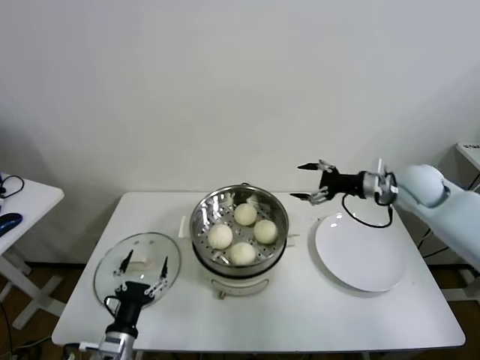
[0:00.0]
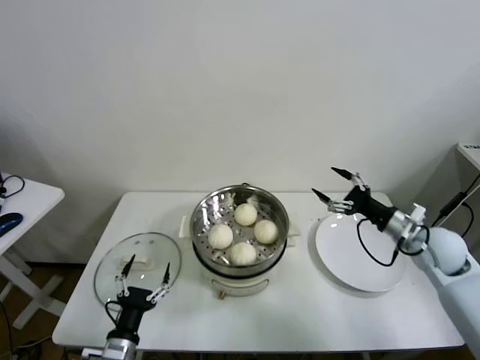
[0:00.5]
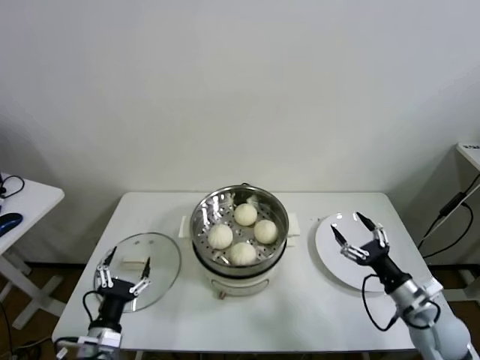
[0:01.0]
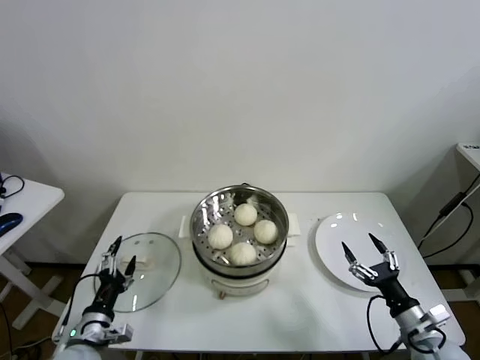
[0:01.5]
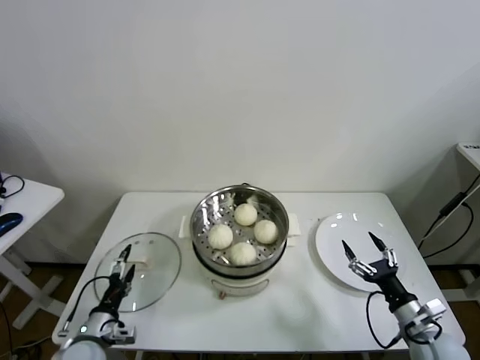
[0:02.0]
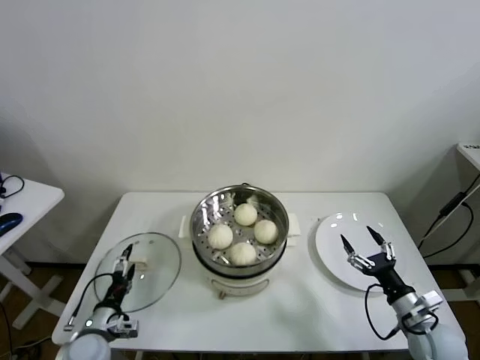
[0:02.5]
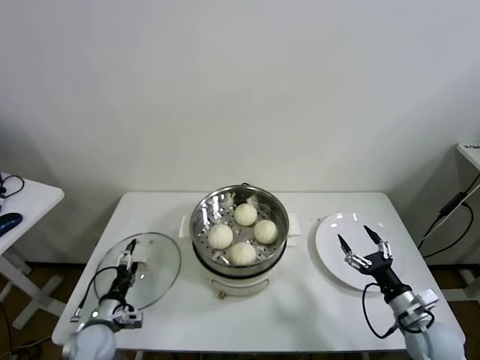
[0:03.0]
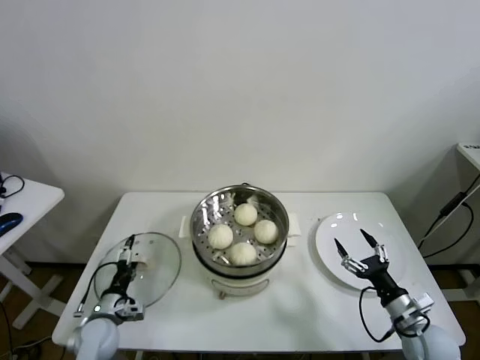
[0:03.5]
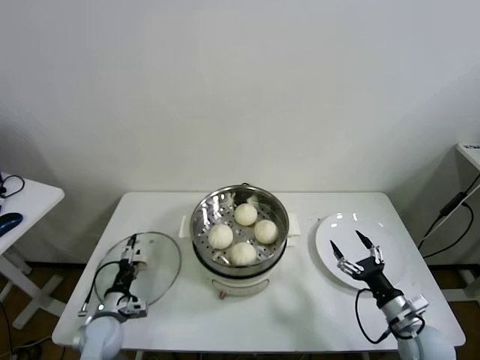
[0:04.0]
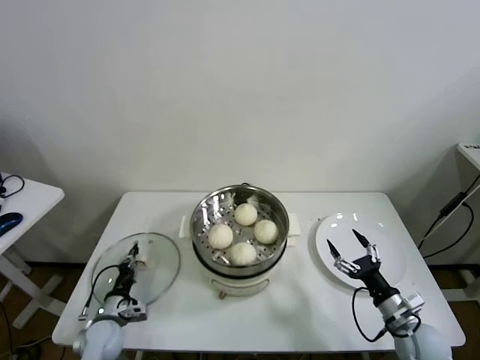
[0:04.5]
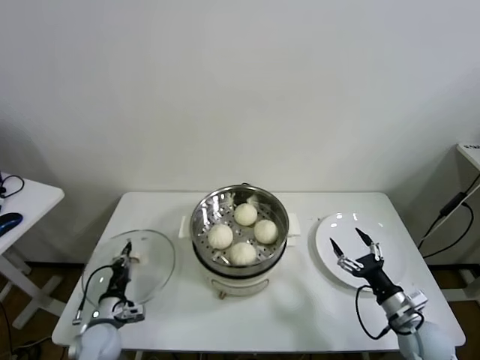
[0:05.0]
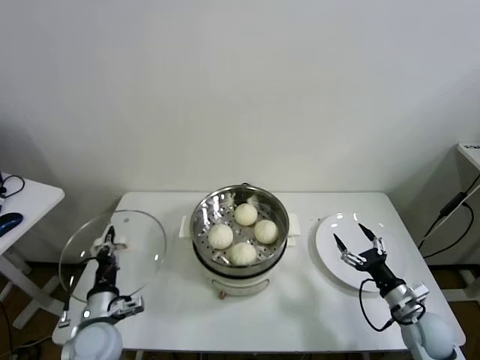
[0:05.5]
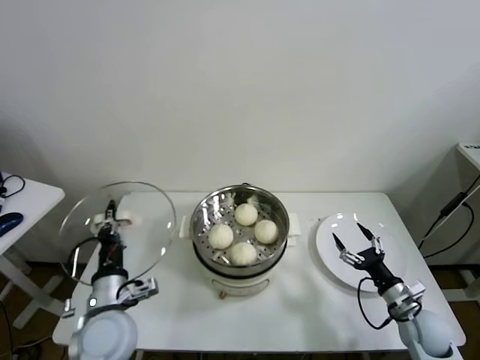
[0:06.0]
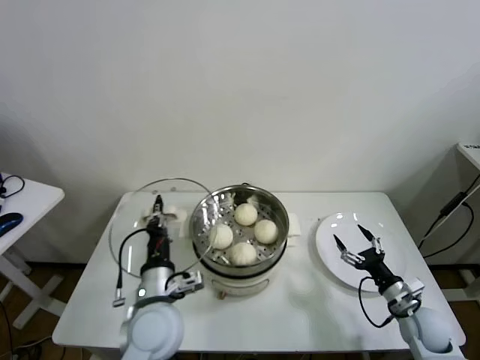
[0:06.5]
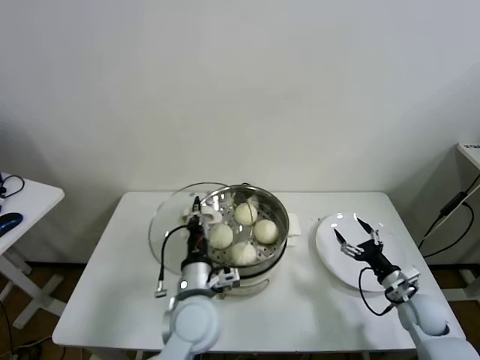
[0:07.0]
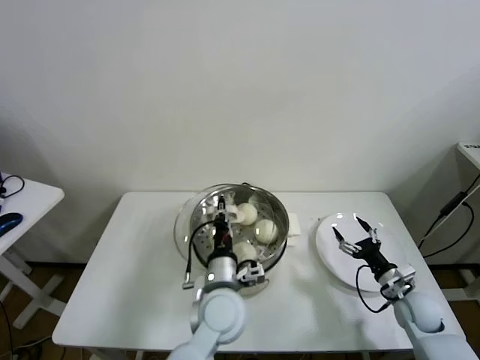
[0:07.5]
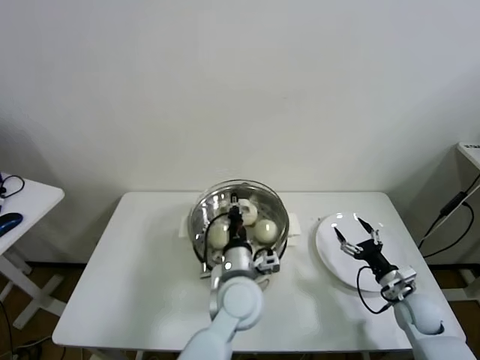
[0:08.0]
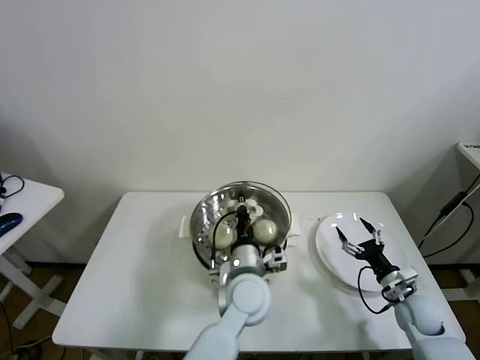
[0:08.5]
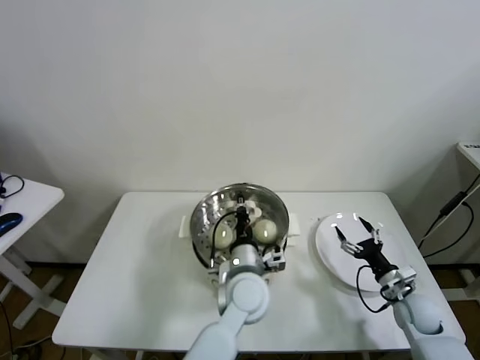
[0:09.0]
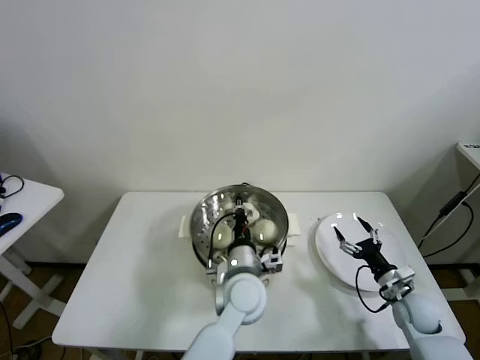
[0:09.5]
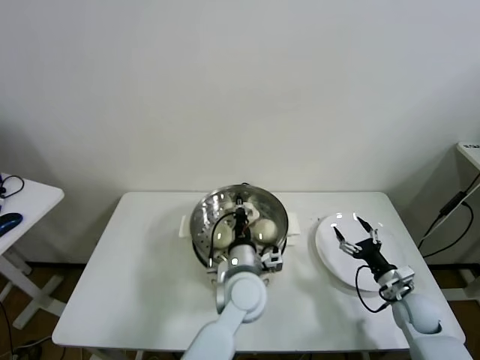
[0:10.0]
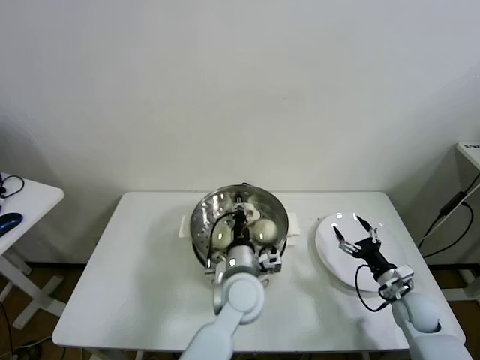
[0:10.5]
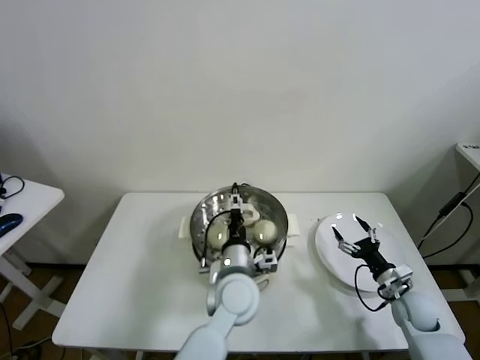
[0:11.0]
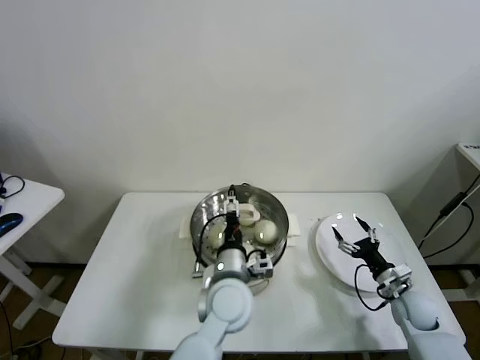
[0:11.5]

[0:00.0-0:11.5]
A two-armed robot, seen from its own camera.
Task of the whole recording: take steamed baozi put them in steamer.
Step, 0:00.0 to 0:04.5: Grasp the pot lid with left gripper.
Step, 0:05.0 to 0:11.0: Place the pot lid on the steamer with left gripper.
0:00.0 to 0:02.0: The left gripper is displaced to the left by about 5 cm. Meanwhile the right gripper is displaced backward and downward by approximately 35 cm.
0:02.0 to 0:04.0: The left gripper is displaced forward by approximately 5 cm.
0:04.0 to 0:06.0: The left gripper moves upward and to the right, roughly 20 cm, and closes its fingers.
0:06.0 to 0:07.5: The right gripper ends up some 5 cm from where it was. The left gripper heads to the right, covering some 20 cm.
0:07.5 to 0:09.5: The left gripper shifts by some 5 cm.
0:09.5 to 0:11.5: The left gripper opens its fingers.

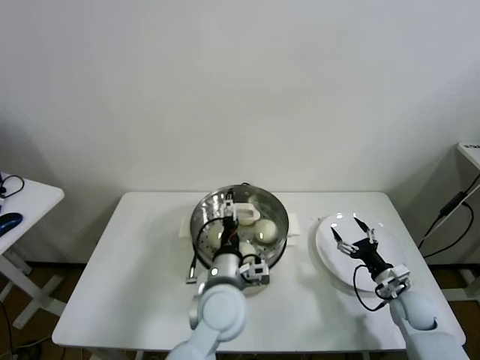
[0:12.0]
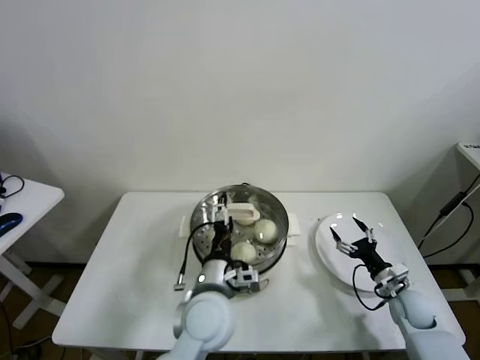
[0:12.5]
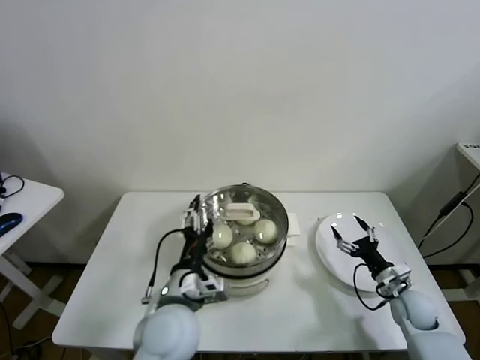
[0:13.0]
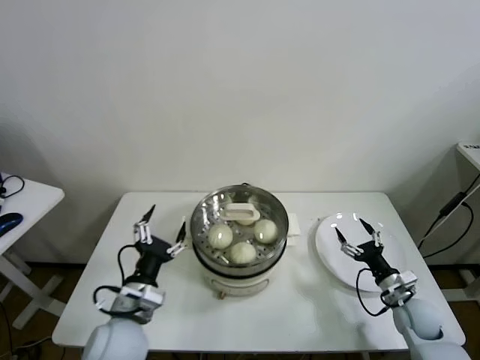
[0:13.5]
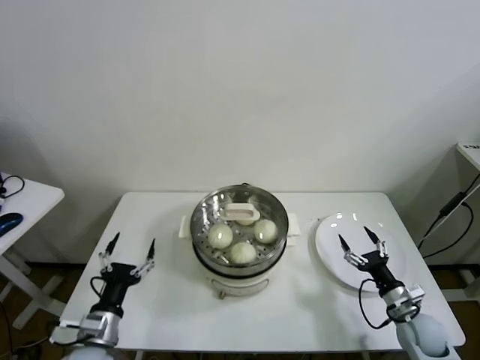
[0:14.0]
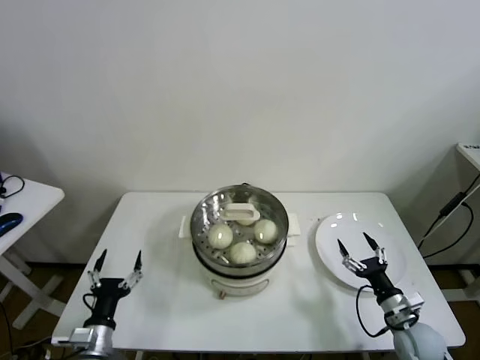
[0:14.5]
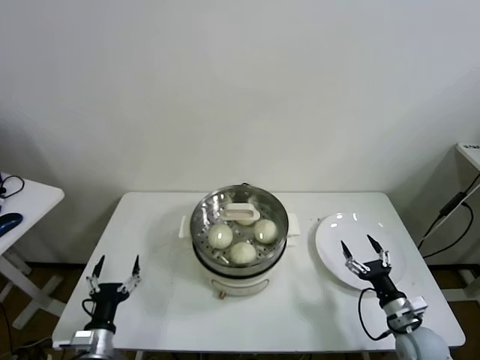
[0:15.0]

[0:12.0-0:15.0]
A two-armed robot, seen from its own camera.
Task of the whole recording: take steamed baozi put them in steamer.
0:12.0 to 0:13.5: The left gripper travels to the left by roughly 15 cm.
0:13.5 to 0:15.0: The left gripper travels downward and to the left by roughly 20 cm. Meanwhile the right gripper travels backward by some 5 cm.
